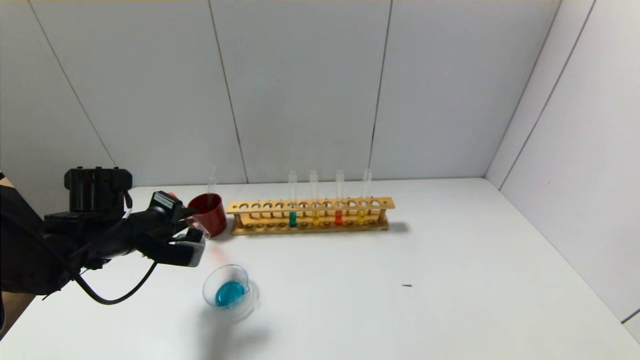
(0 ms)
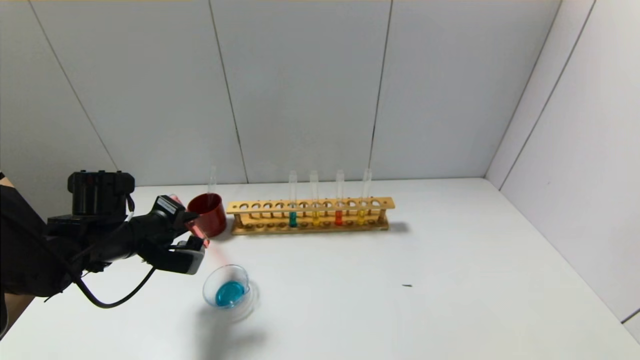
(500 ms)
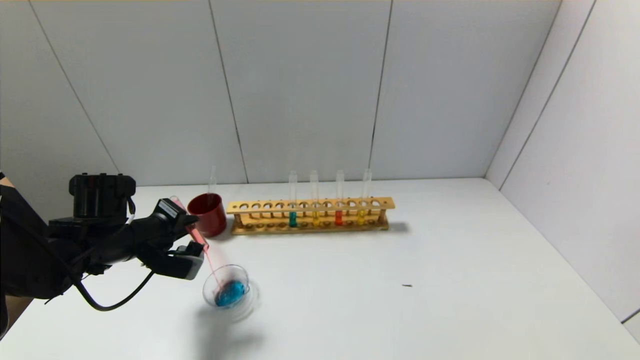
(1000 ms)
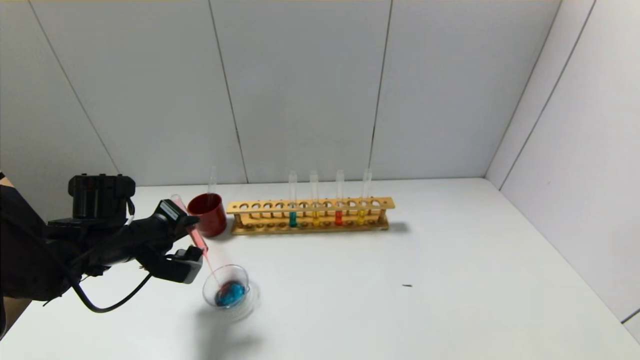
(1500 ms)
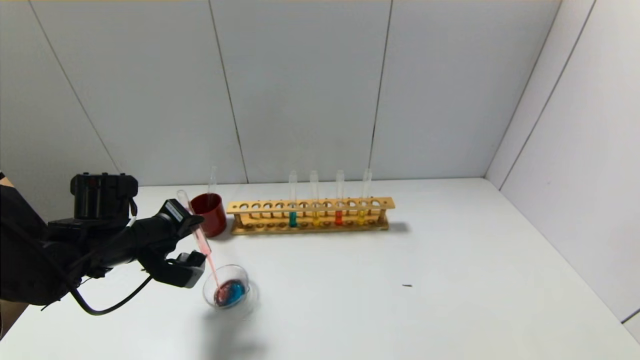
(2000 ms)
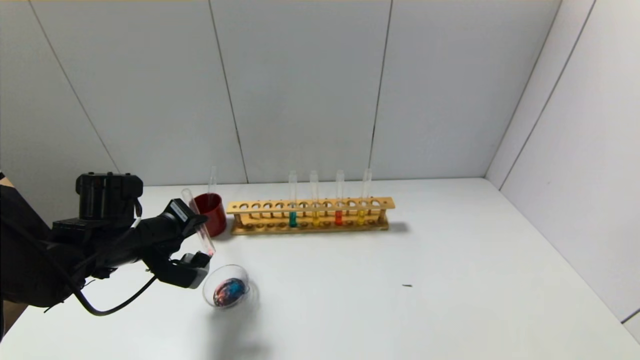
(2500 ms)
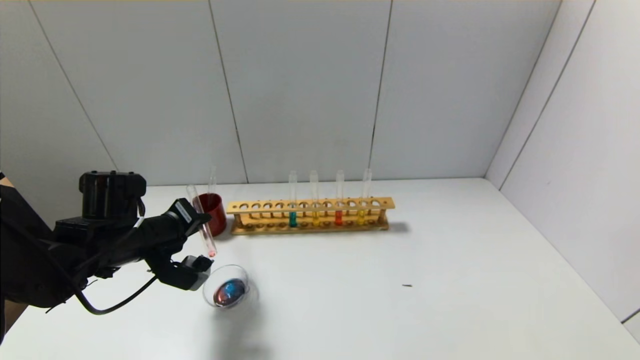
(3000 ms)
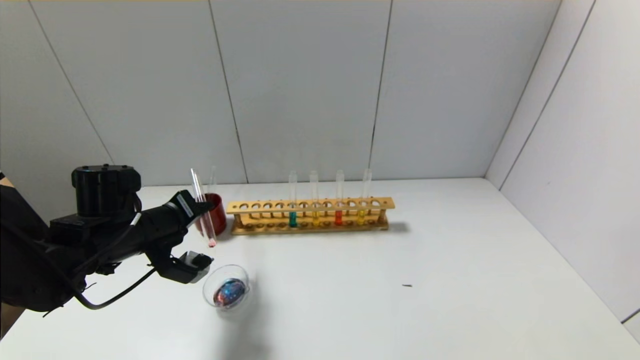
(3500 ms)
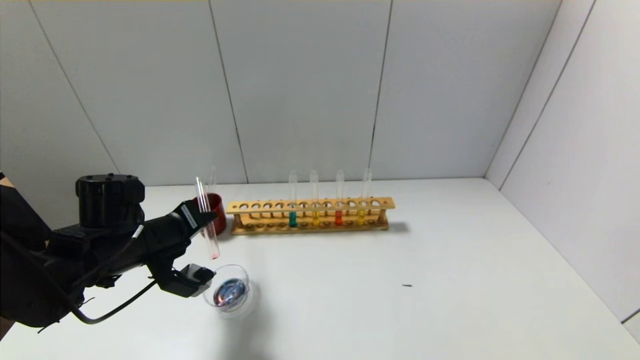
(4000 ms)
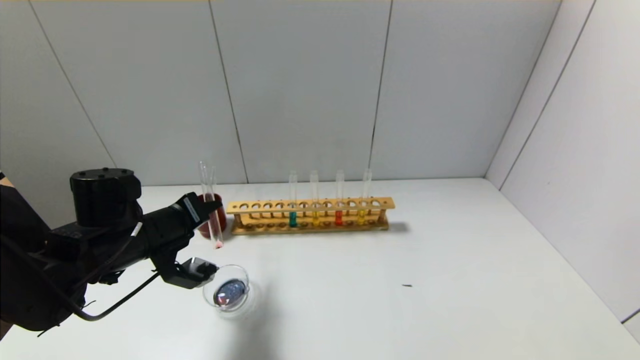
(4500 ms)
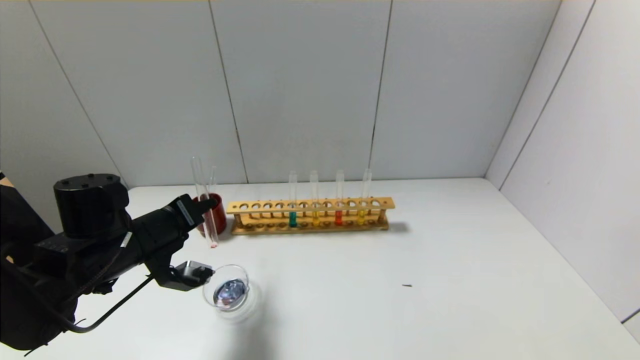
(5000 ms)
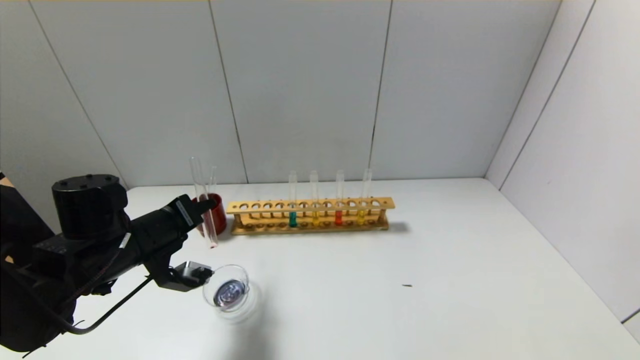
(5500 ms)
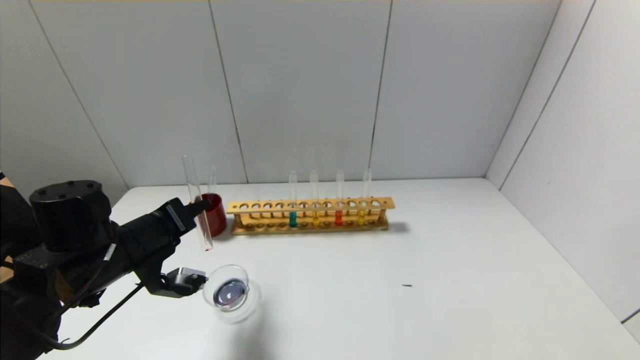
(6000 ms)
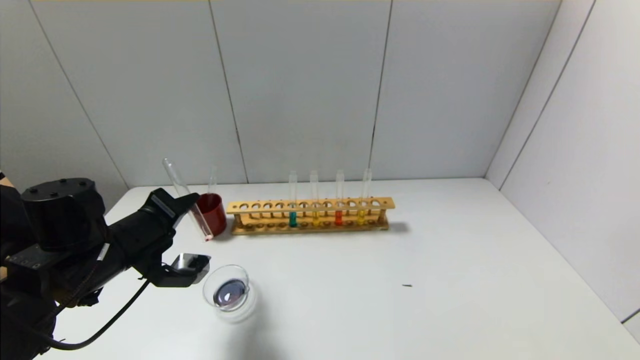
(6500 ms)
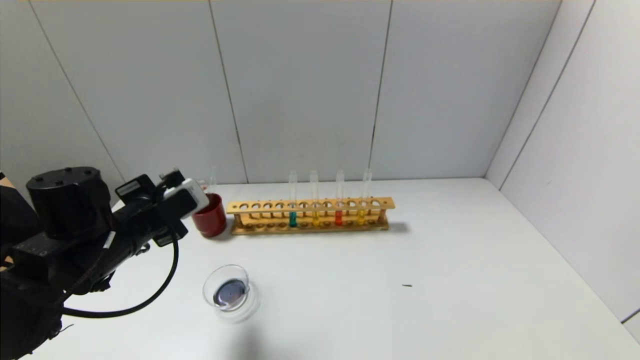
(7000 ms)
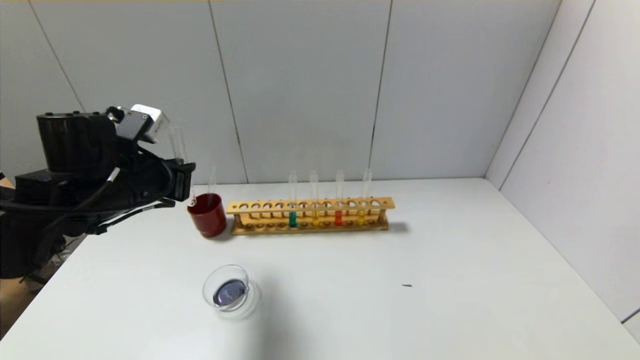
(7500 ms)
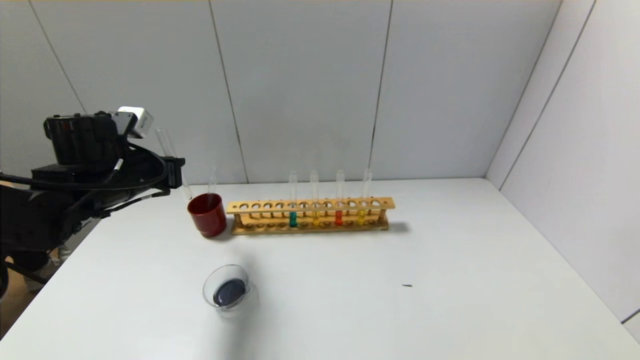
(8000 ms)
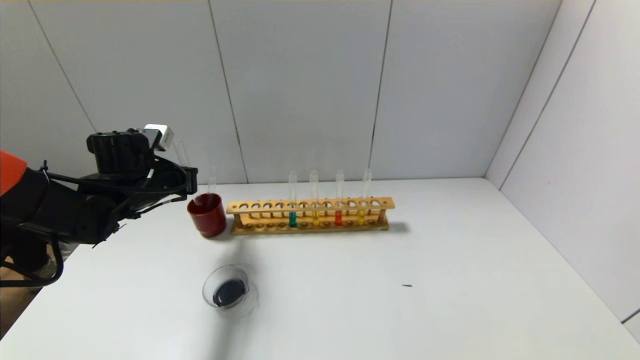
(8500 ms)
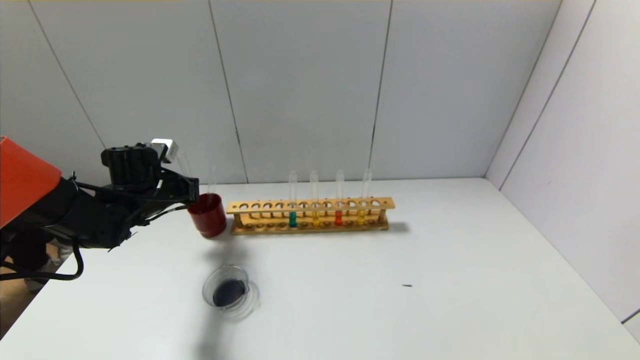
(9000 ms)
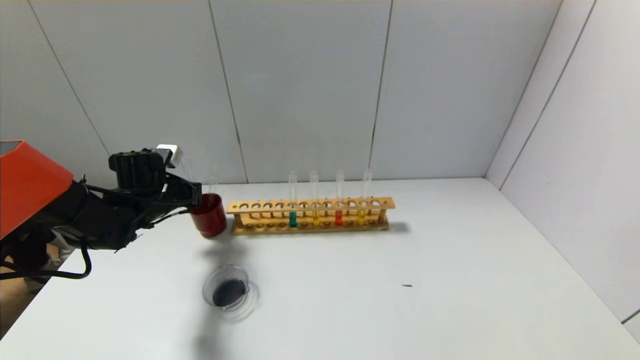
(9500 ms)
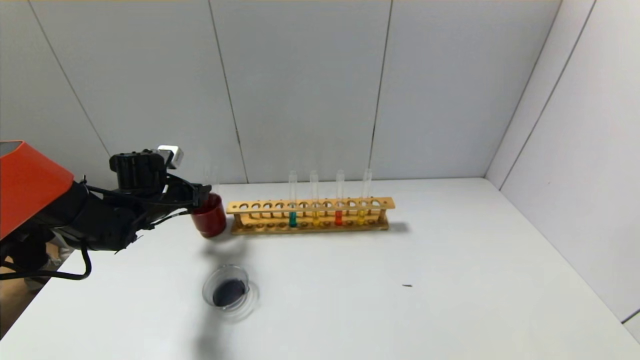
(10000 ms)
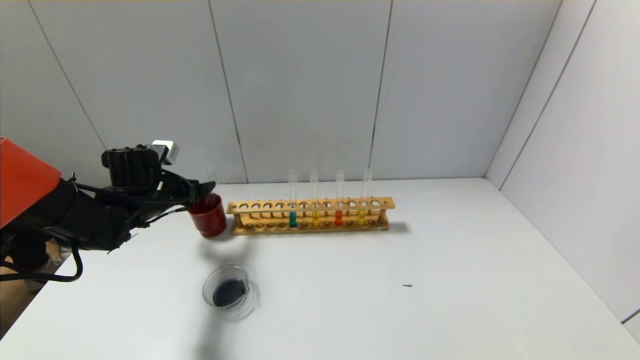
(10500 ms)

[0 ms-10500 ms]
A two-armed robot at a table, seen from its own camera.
Step, 0 ms to 6500 ms: Pour the red reagent into the graduated cylinder with the left gripper.
Step, 7000 ms to 9500 ms: Place the test tube into the brown cup with the left gripper.
0 ms to 2000 ms: The grippers make only small movements.
2000 ms to 4000 ms: There are only small adjustments of the grippers.
4000 ms to 6500 ms: There are only small adjustments of the grippers.
6500 ms to 8500 ms: The left gripper goes roughly 15 cm forward.
8500 ms to 10500 ms: The left gripper opens up.

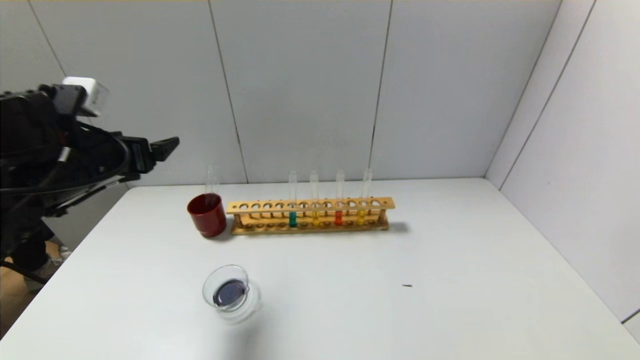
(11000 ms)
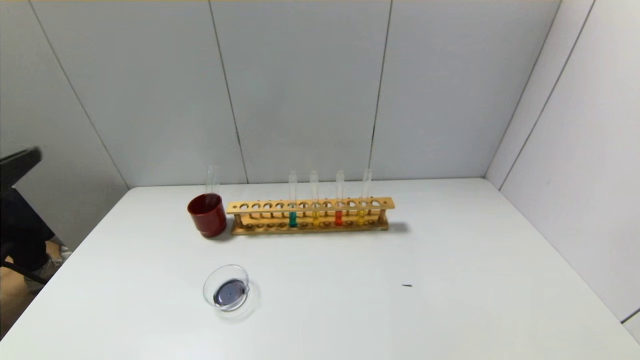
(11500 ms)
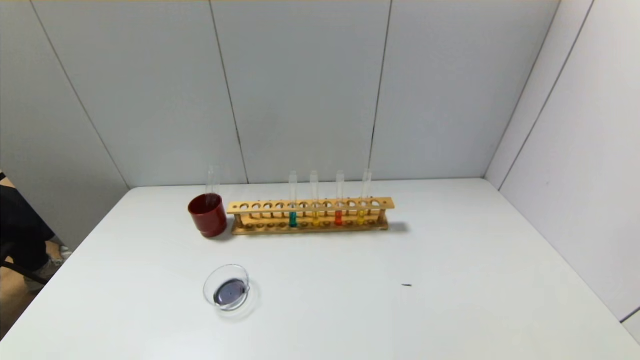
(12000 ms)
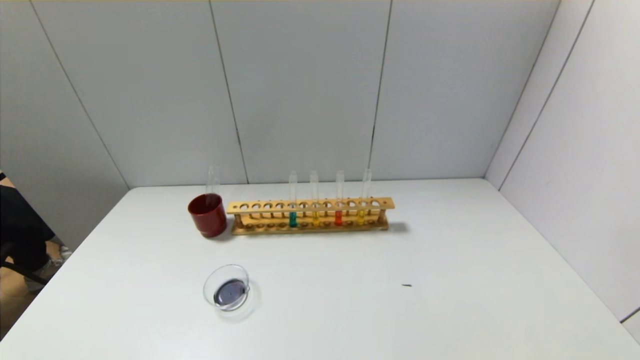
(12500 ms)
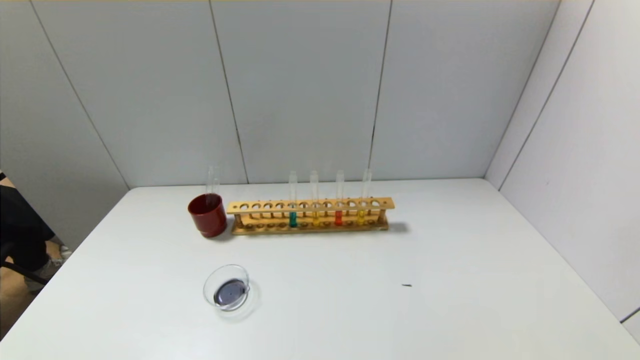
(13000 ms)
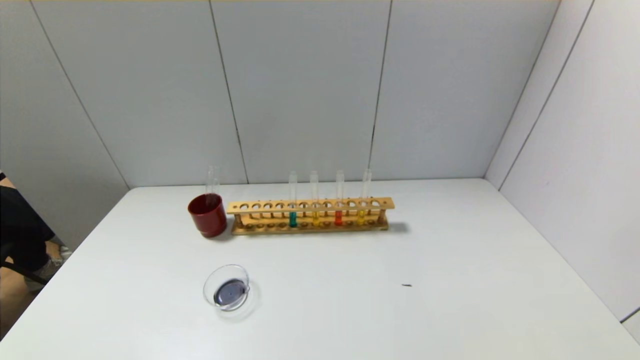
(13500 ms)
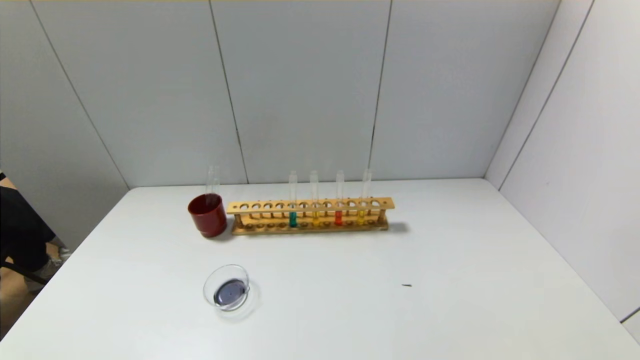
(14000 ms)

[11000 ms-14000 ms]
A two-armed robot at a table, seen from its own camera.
11000 ms to 12500 ms: The left gripper shifts approximately 35 cm backward and downward.
